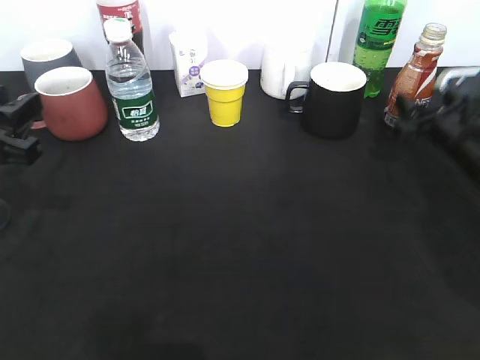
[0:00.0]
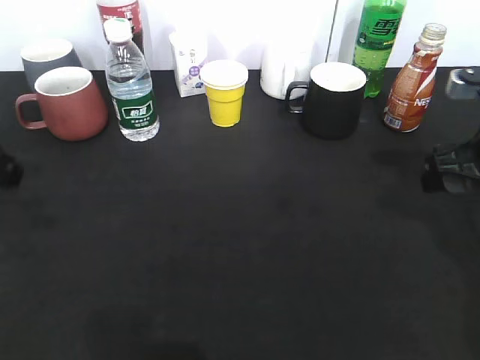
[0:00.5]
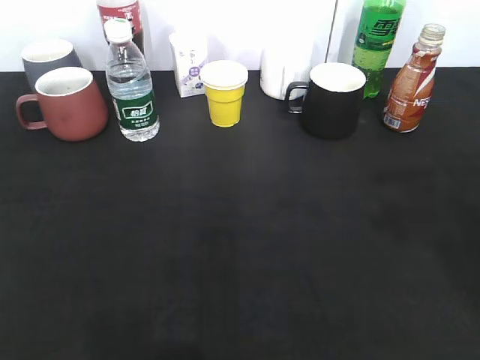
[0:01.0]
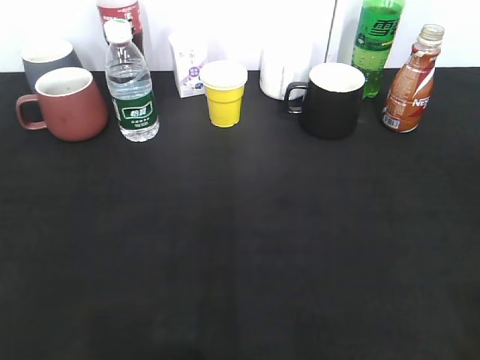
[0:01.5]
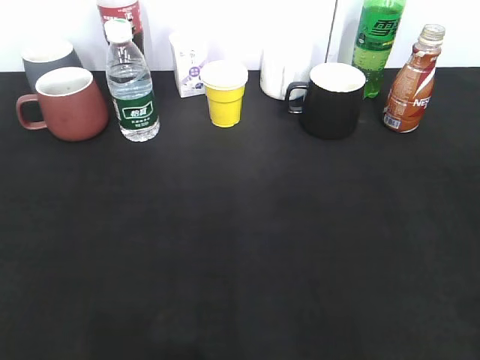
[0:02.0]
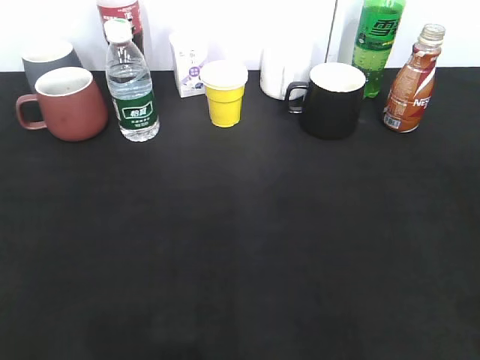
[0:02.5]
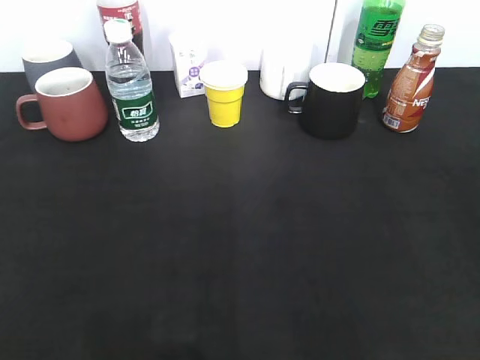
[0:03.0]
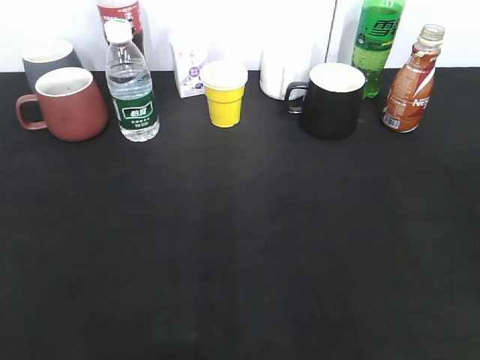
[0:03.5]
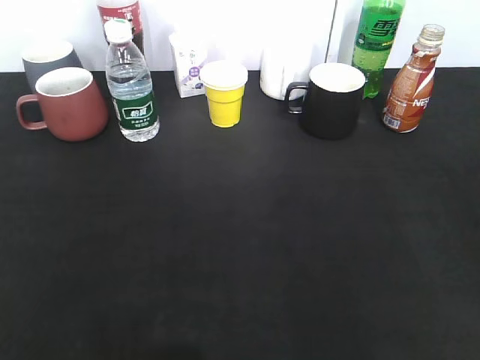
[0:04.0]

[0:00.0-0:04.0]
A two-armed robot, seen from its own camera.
0:00.0 to 0:02.0: The right gripper is displaced backward and upward by some 35 cm. Meanwhile the left gripper travels backward and upward by approximately 20 cm.
